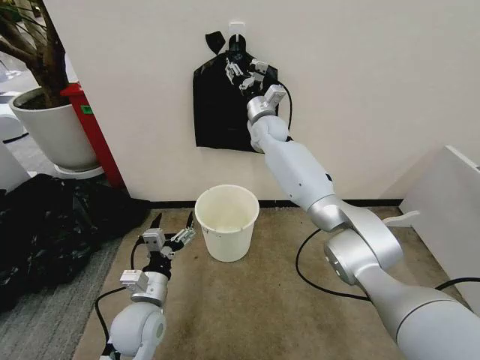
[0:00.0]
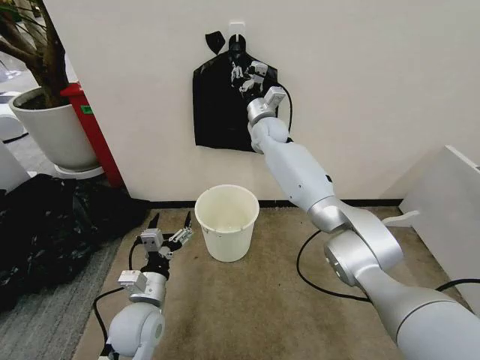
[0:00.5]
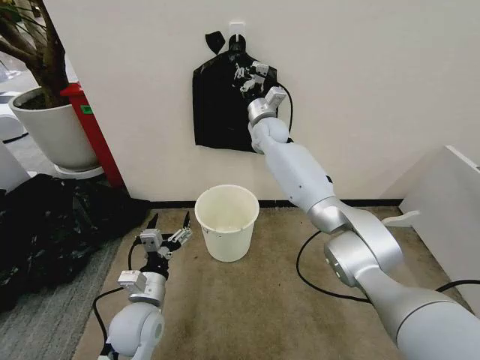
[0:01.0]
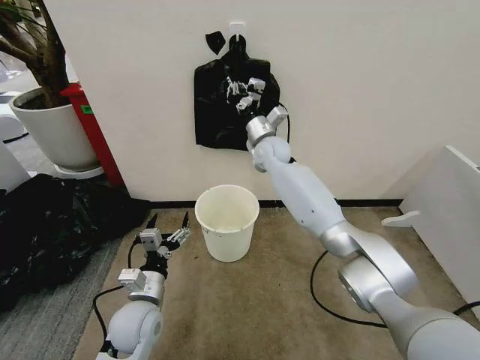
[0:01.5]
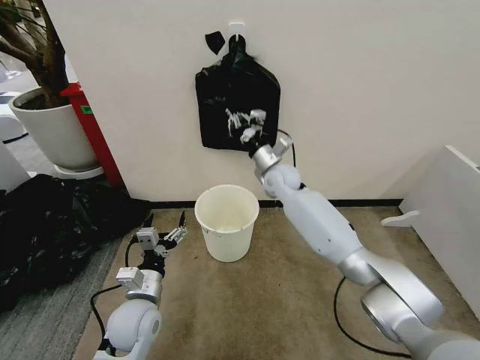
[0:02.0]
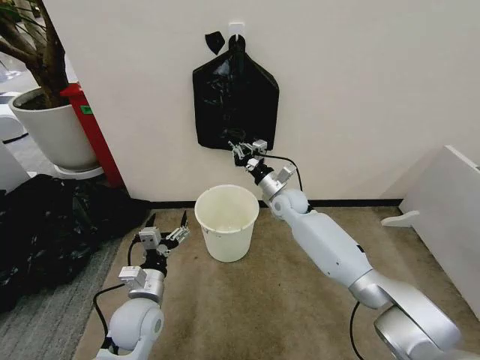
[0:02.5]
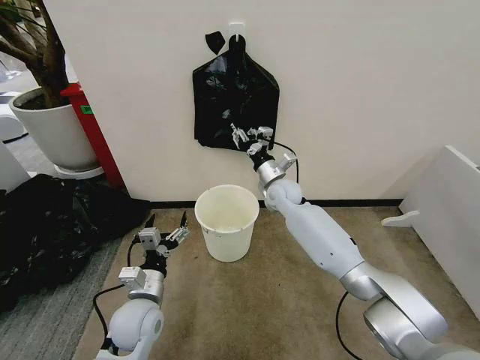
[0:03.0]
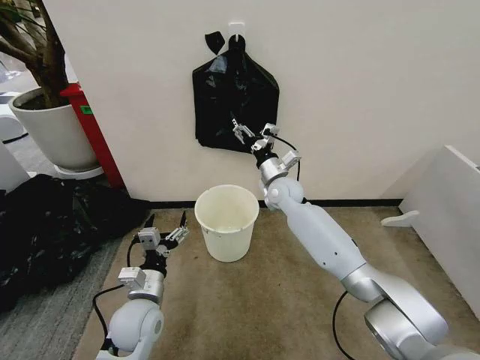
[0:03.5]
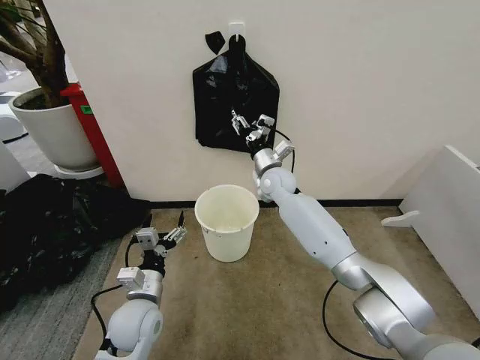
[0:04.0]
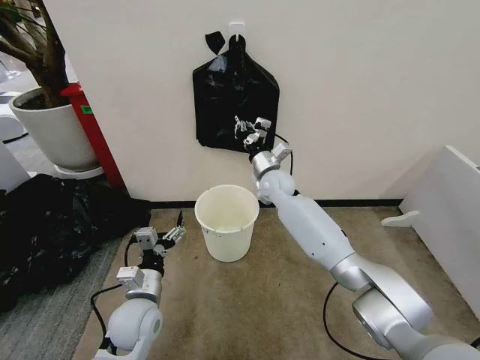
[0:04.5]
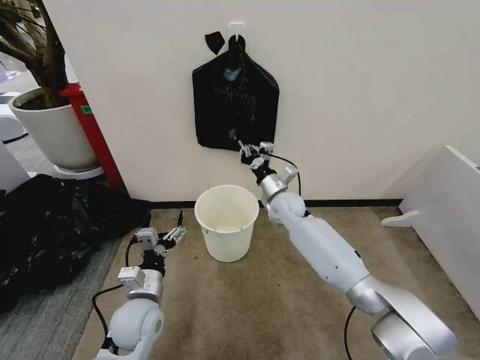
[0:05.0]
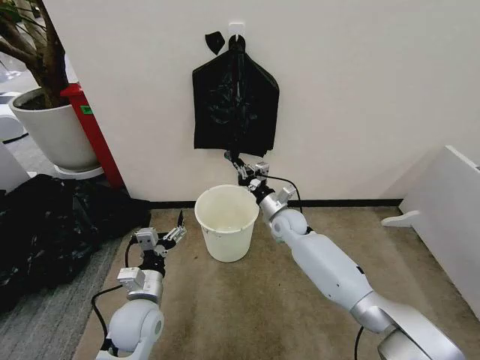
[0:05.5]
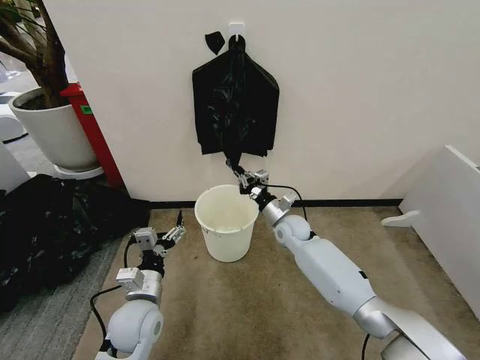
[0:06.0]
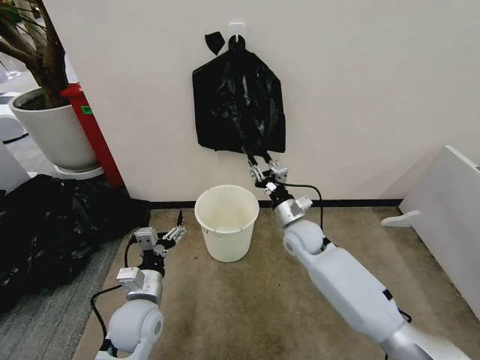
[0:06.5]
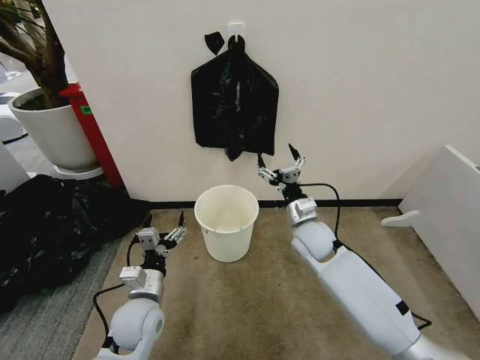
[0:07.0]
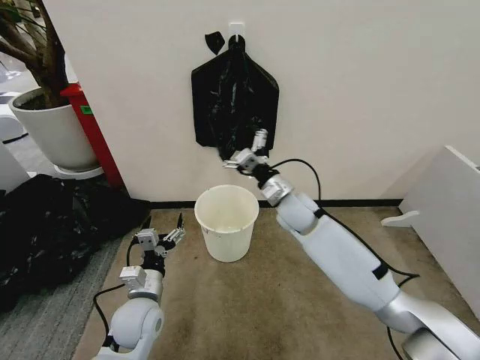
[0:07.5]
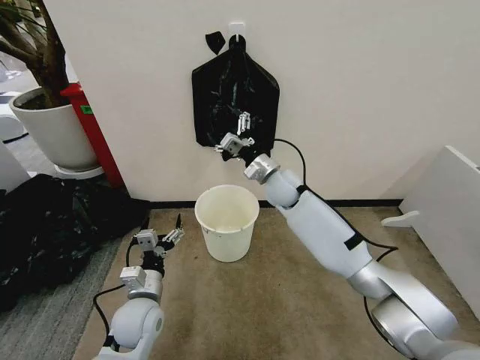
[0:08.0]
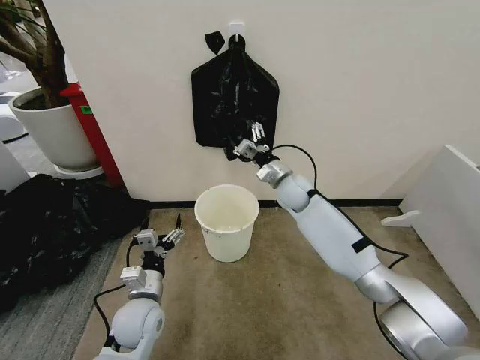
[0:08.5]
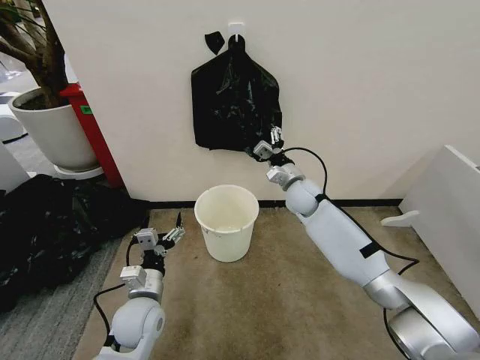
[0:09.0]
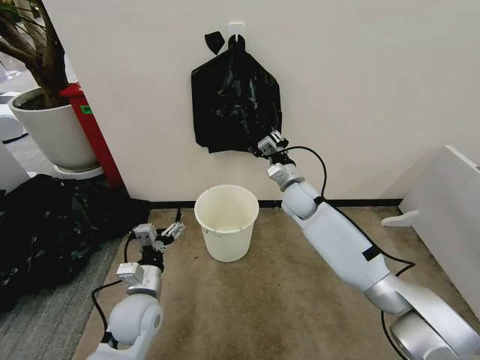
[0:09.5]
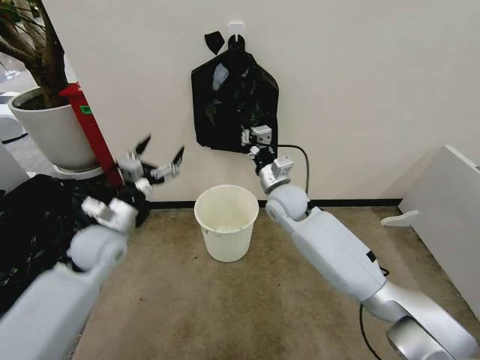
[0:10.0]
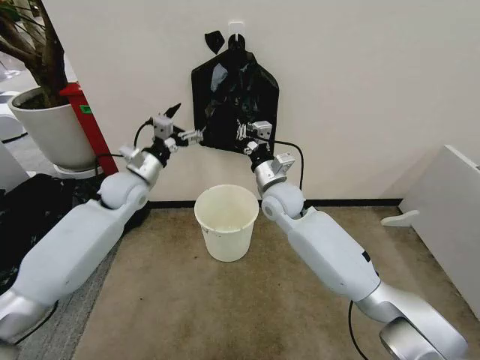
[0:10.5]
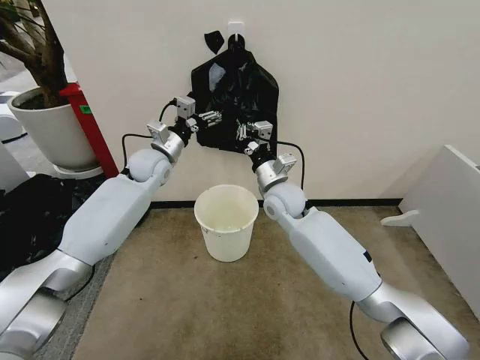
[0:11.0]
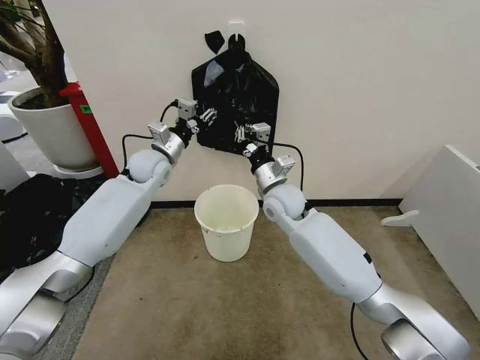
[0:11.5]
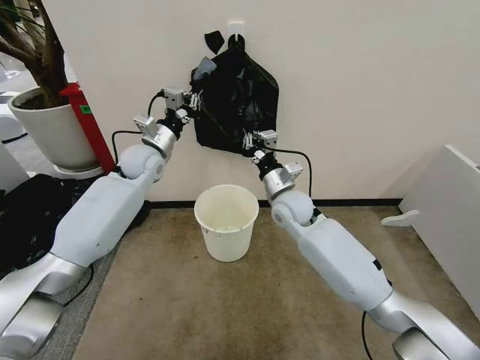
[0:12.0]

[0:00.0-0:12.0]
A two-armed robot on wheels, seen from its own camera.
Task of the whole recording: Place the garbage bag over the trash bin.
0:00.0 to 0:02.0: The right gripper is displaced downward and backward by roughly 15 cm, and closes up.
0:02.0 to 0:04.0: The right gripper opens.
0:04.0 to 0:06.0: The right gripper goes roughly 15 cm downward, backward and to the right, and closes up.
0:06.0 to 0:08.0: The right gripper moves upward, about 15 cm, and opens its fingers.
0:08.0 to 0:10.0: The right gripper moves backward, approximately 5 cm, and closes its fingers. The left gripper heads upward, forward and to the left, covering roughly 20 cm.
0:10.0 to 0:12.0: The left gripper heads forward and upward, covering approximately 20 cm, and closes its fingers.

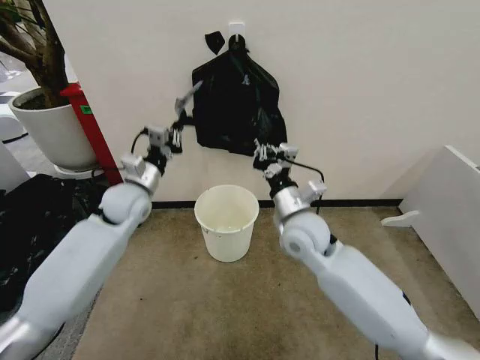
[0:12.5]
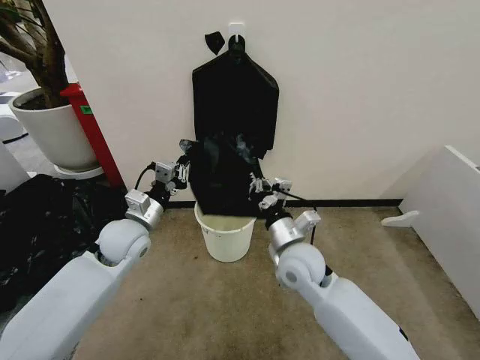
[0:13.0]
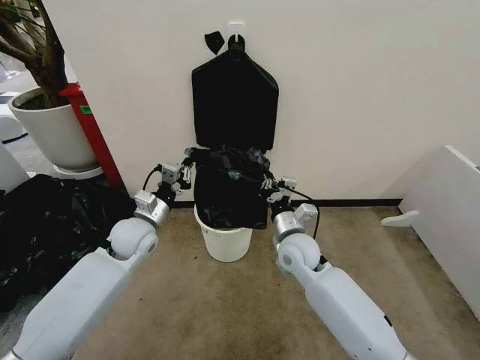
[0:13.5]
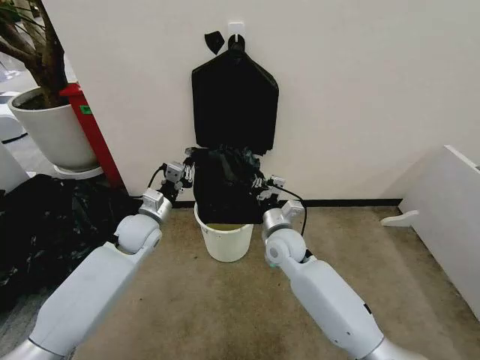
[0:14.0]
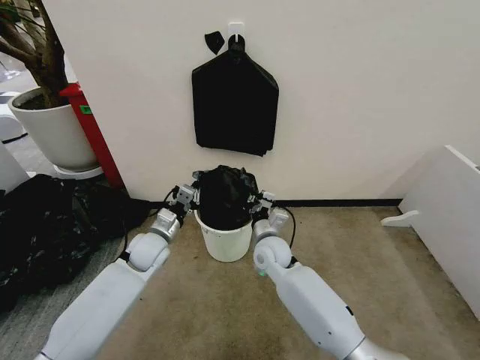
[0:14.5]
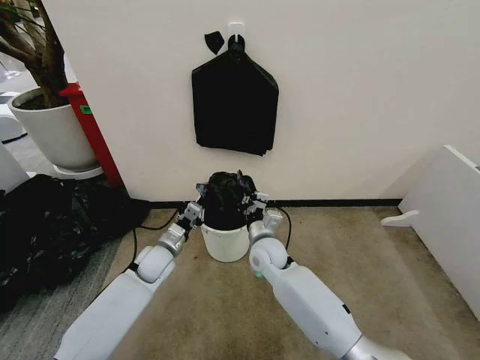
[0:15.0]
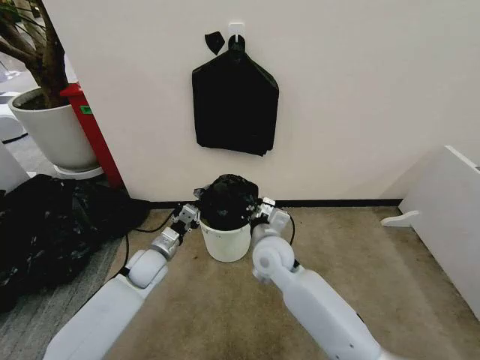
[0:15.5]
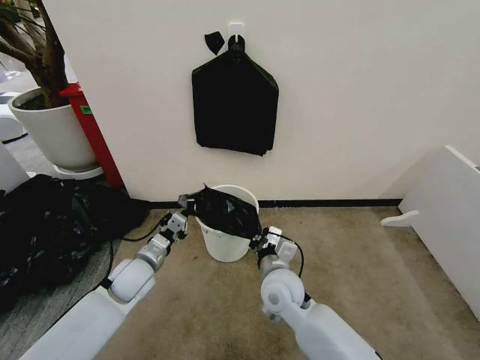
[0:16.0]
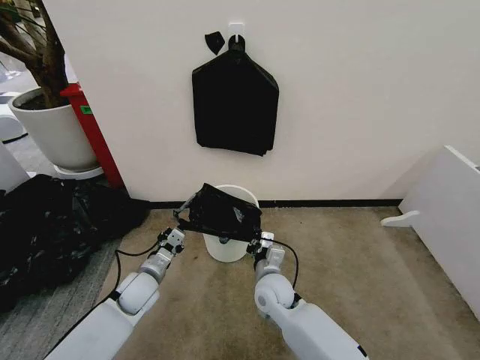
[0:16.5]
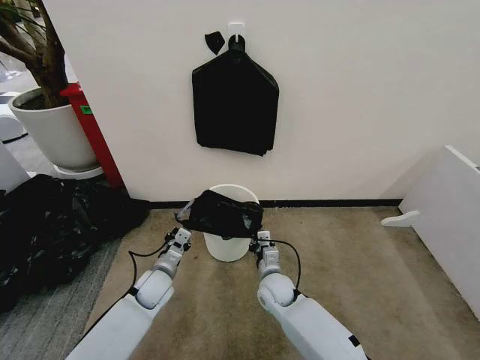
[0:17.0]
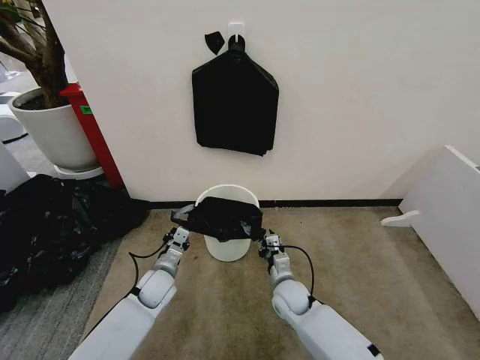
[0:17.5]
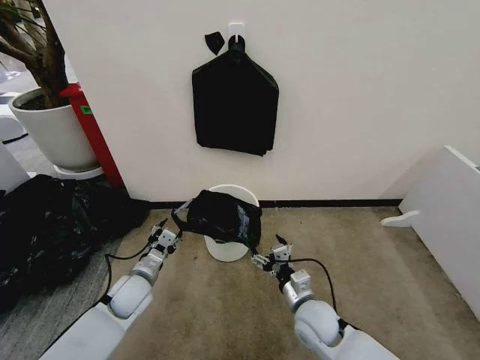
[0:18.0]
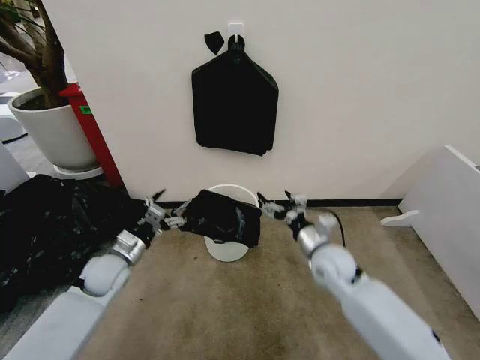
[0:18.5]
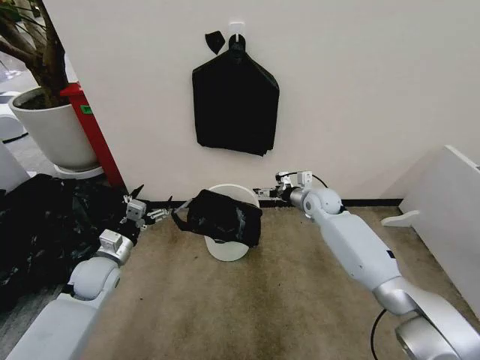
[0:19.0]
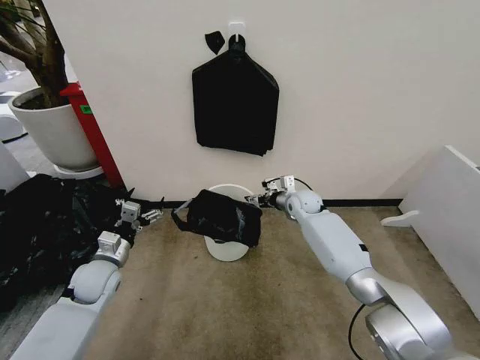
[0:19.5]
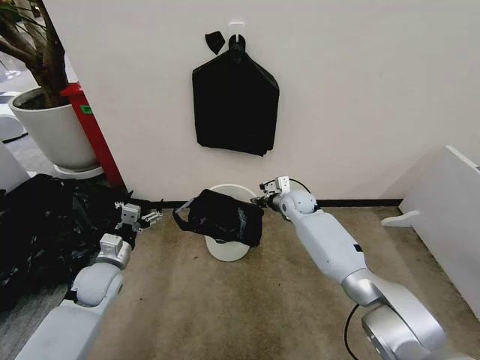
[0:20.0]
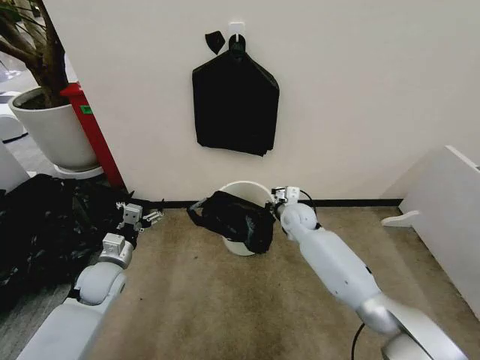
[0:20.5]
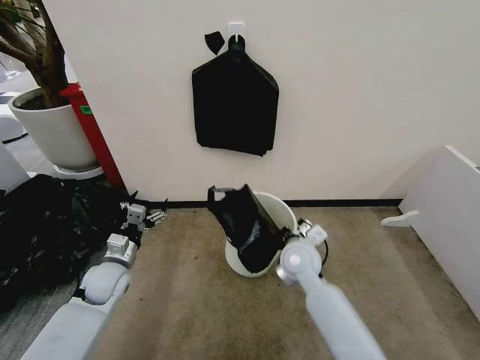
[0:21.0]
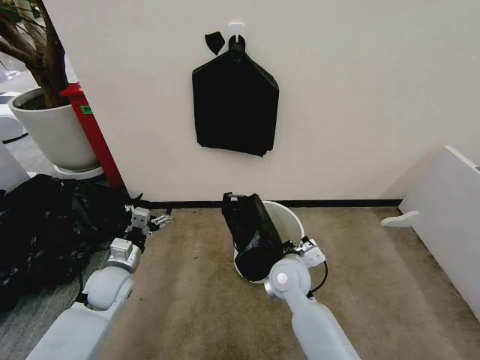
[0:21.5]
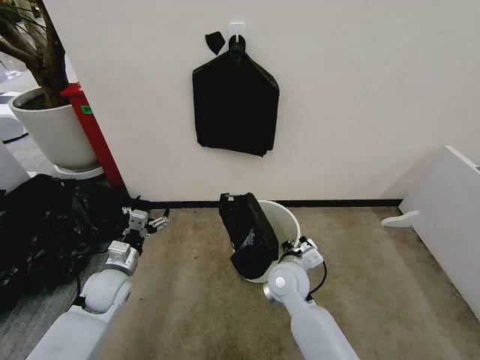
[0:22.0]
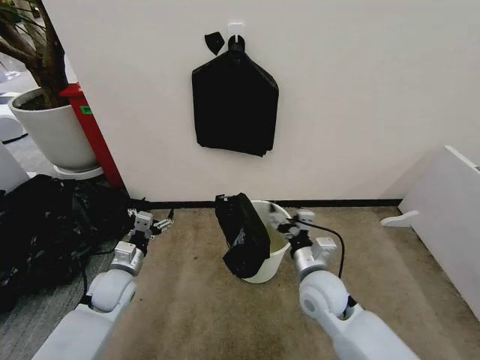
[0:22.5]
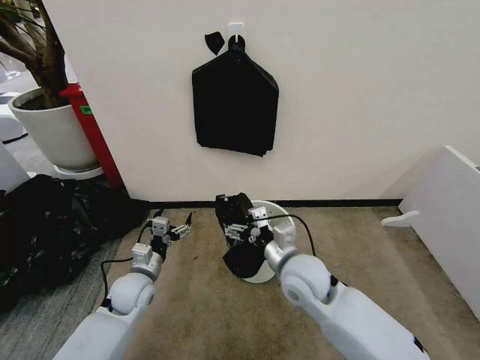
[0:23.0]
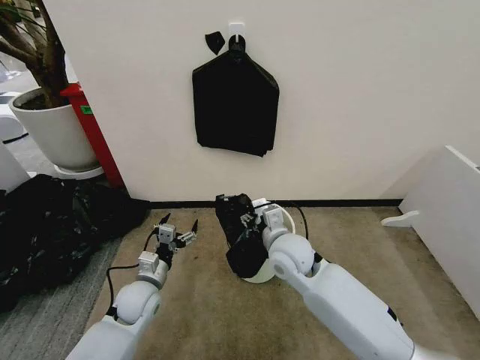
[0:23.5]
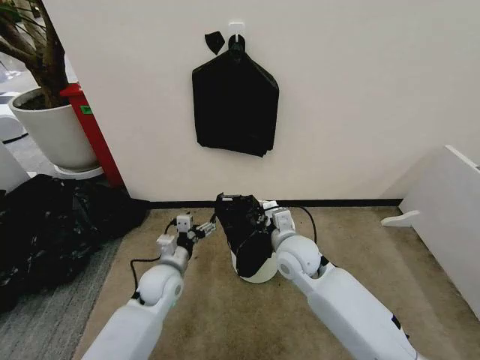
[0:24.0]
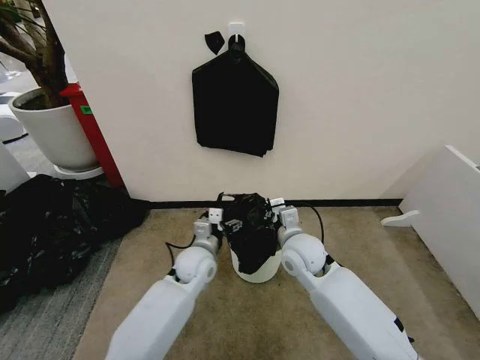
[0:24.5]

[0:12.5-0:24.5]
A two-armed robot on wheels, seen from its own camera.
Task of the whole recording: Place the garbage bag over the trash bin.
0:12.5 to 0:14.5: Both grippers travel together downward, approximately 15 cm.
0:14.5 to 0:16.5: The left gripper travels backward and downward by roughly 10 cm. The right gripper goes approximately 10 cm backward.
0:16.5 to 0:18.5: The right gripper heads to the right, upward and forward, covering about 15 cm, and opens up. The left gripper shifts roughly 10 cm to the left and upward, and opens up.
0:18.5 to 0:20.5: The right gripper goes approximately 15 cm forward and to the left, and closes its fingers.
0:20.5 to 0:22.5: The right gripper travels backward by approximately 20 cm, and opens up.
0:22.5 to 0:24.5: The left gripper goes roughly 20 cm to the right; the right gripper travels forward and upward by some 10 cm, and closes up.

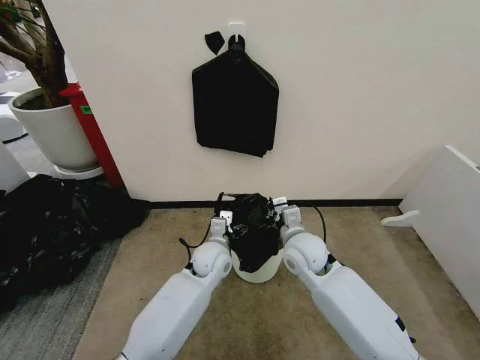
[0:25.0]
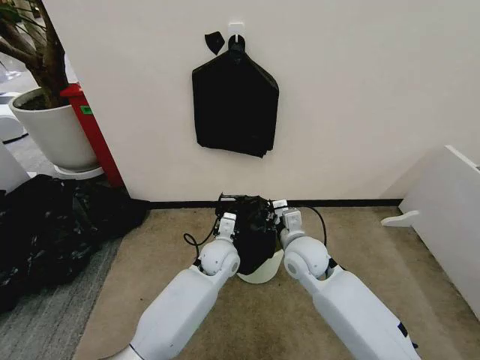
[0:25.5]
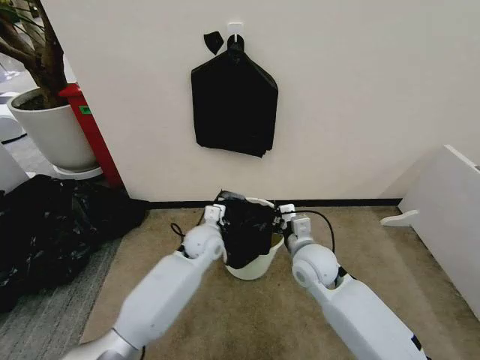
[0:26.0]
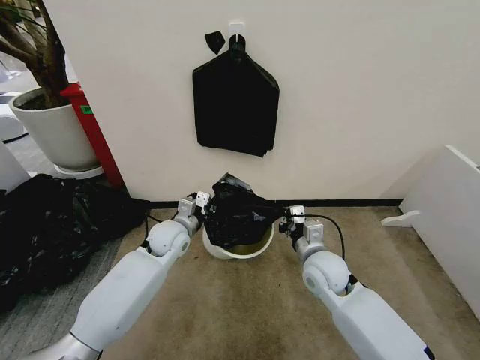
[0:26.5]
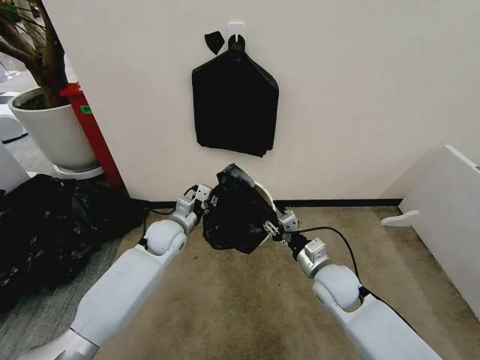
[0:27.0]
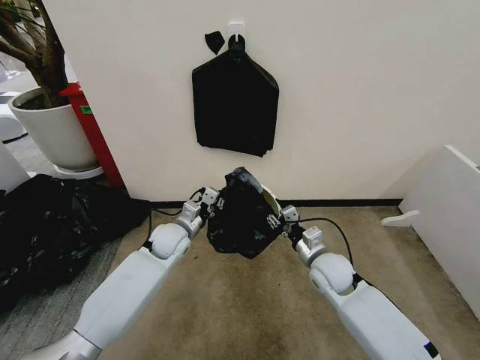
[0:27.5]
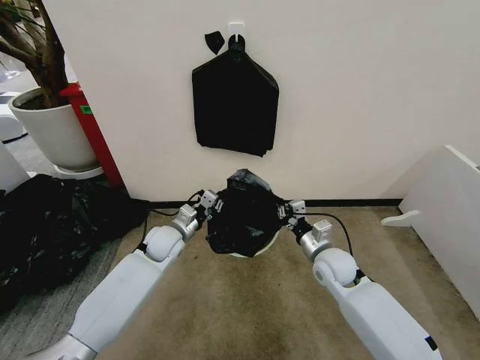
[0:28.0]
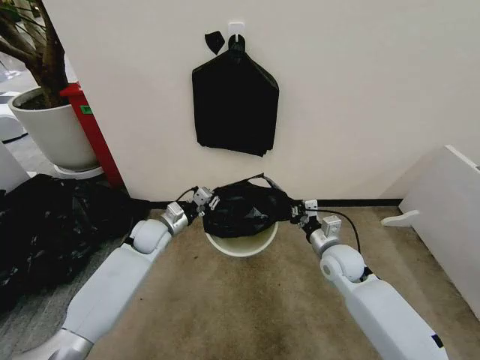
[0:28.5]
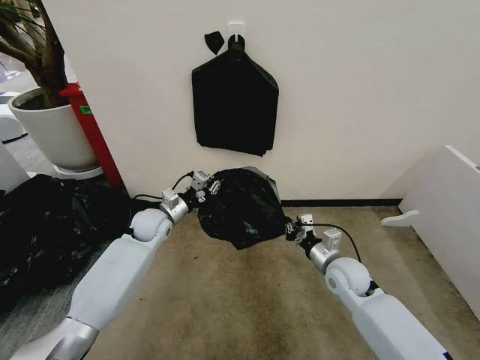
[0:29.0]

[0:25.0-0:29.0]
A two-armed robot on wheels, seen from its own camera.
Task of the whole recording: Place the garbage bag over the trash bin.
0:25.0 to 0:27.0: The right gripper goes some 10 cm to the right, downward and backward, and opens its fingers; the left gripper is displaced to the left by some 10 cm, and closes its fingers.
0:27.0 to 0:29.0: The right gripper moves roughly 5 cm, and closes its fingers, while the left gripper changes place by about 5 cm.
